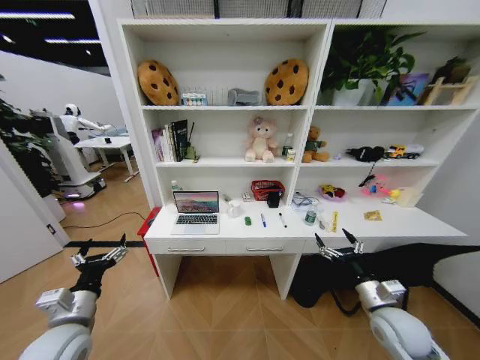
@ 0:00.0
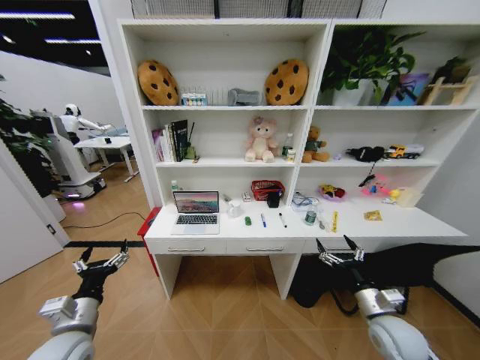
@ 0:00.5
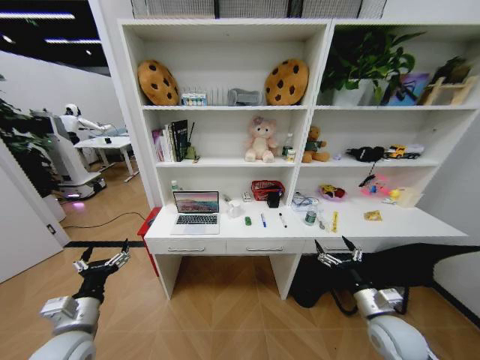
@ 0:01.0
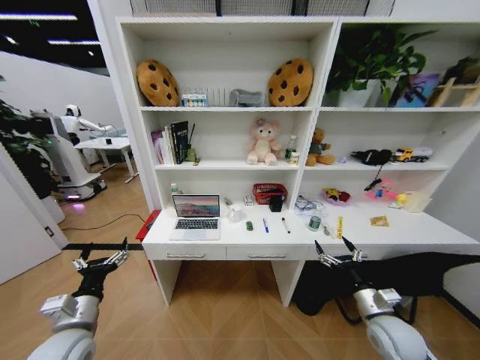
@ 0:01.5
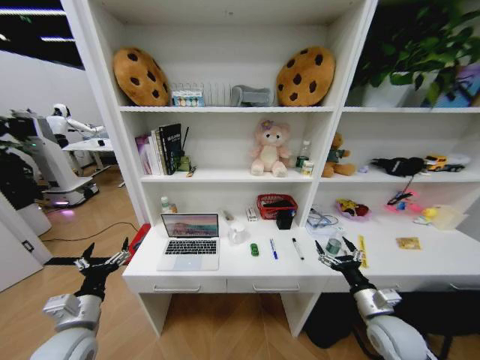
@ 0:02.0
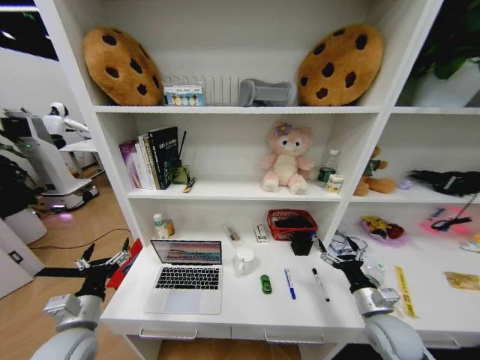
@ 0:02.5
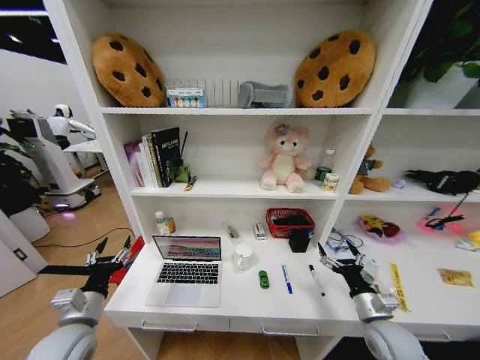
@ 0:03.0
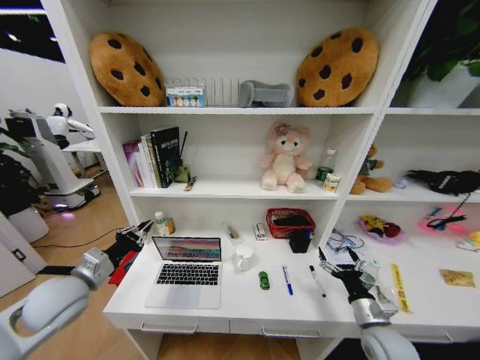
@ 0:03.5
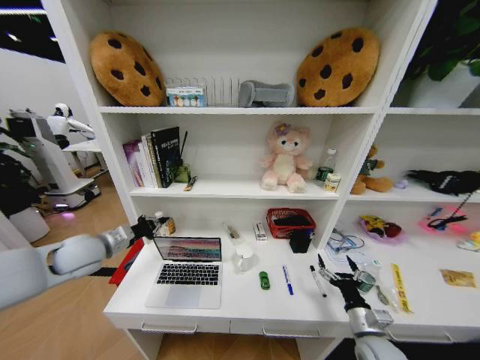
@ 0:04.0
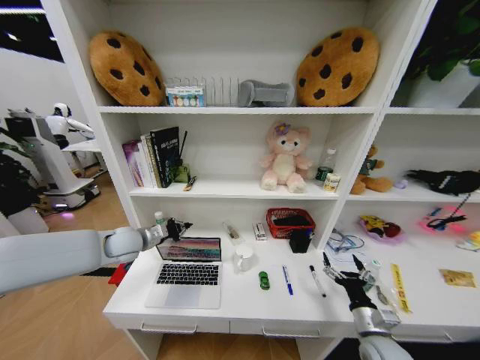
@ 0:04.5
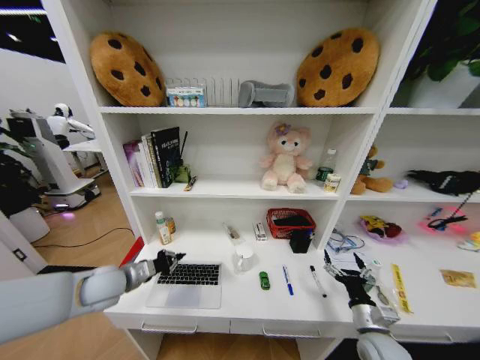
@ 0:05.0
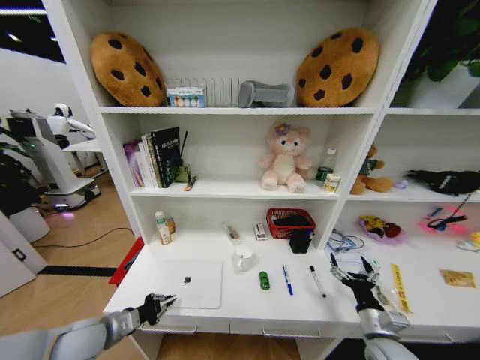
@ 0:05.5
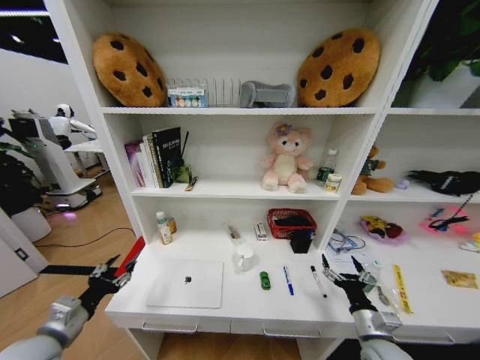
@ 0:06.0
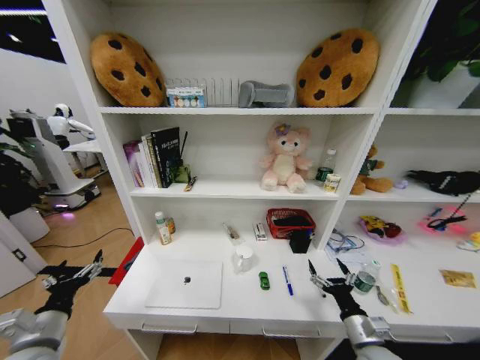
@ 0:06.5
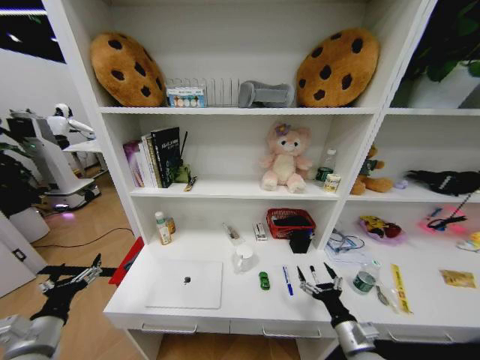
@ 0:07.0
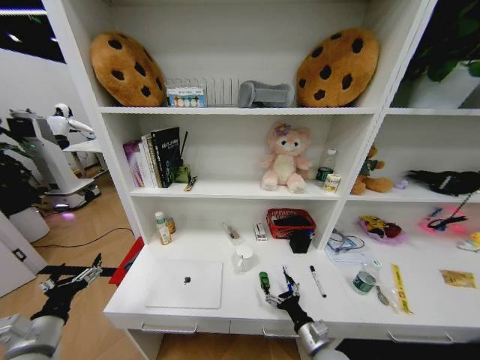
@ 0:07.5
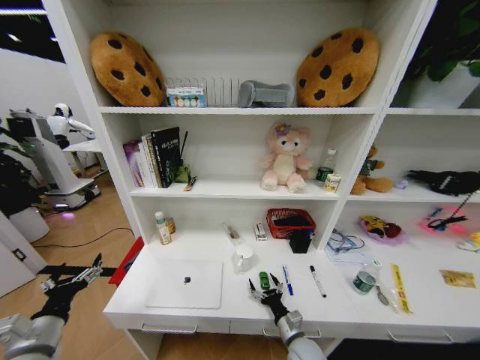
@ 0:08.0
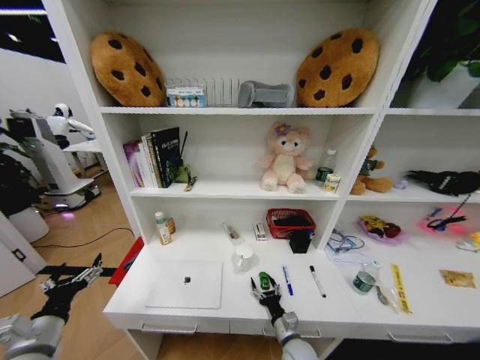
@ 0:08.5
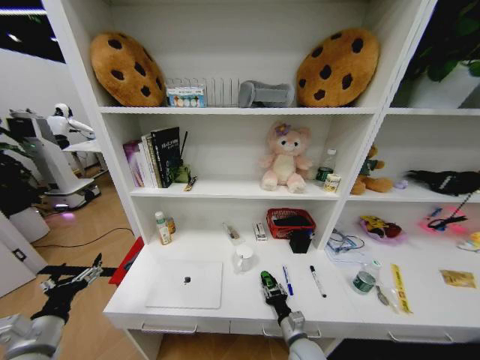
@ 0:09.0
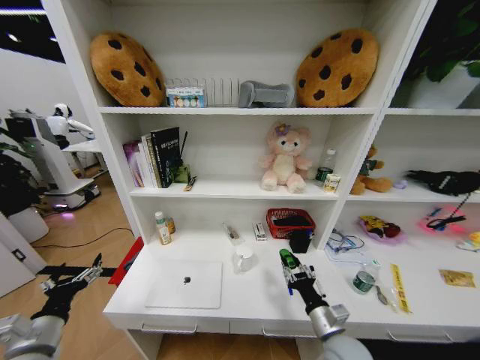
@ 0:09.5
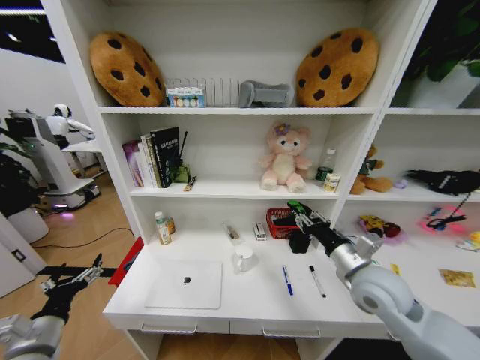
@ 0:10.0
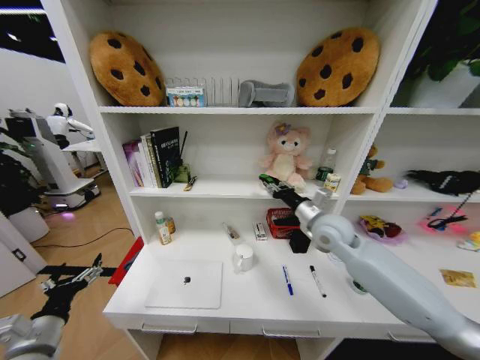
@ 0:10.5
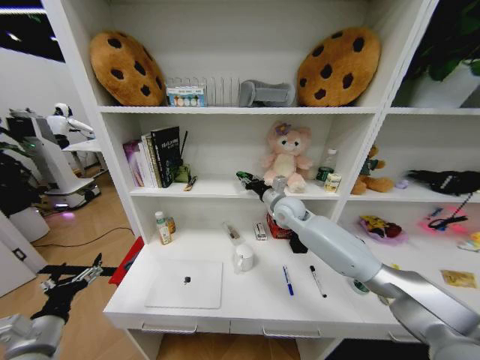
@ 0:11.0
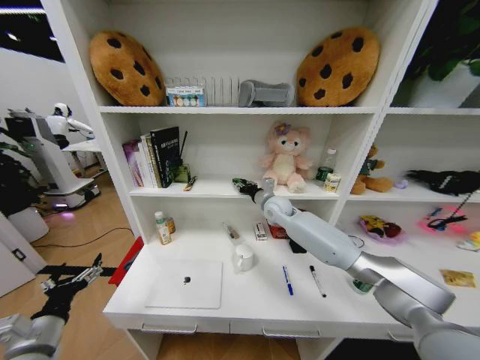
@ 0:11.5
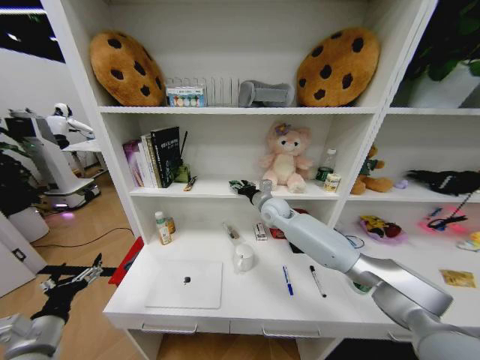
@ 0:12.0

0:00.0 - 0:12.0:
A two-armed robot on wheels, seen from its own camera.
Task of the whole recording: Organize the objects on the table.
0:02.0 - 0:04.0: The right gripper moves downward, some 5 cm, while the left gripper is displaced forward and upward by approximately 20 cm, and closes its fingers.
0:04.0 - 0:06.0: The left gripper moves backward and downward, some 20 cm, and opens up.
0:06.0 - 0:08.0: The right gripper travels to the left and downward by about 20 cm, while the left gripper opens up.
0:08.0 - 0:10.0: The right gripper moves upward, roughly 30 cm, and closes its fingers.
0:10.0 - 0:12.0: The right gripper is displaced forward and to the left by some 30 cm.

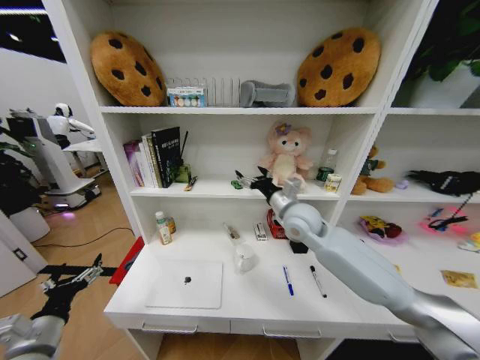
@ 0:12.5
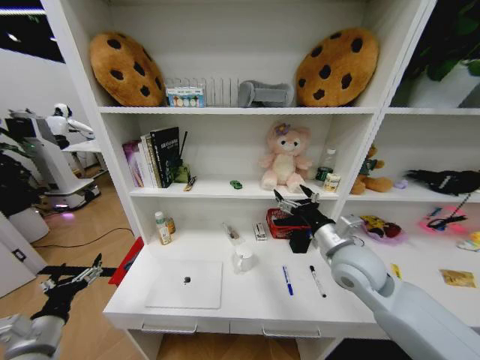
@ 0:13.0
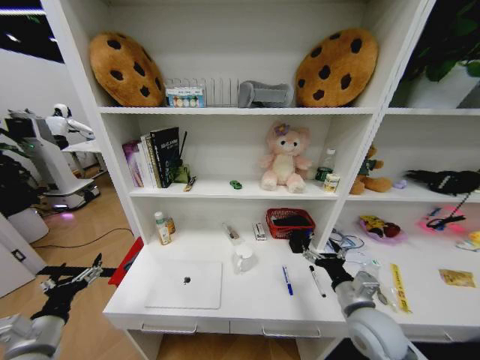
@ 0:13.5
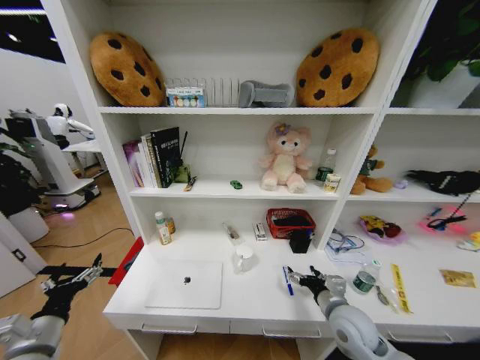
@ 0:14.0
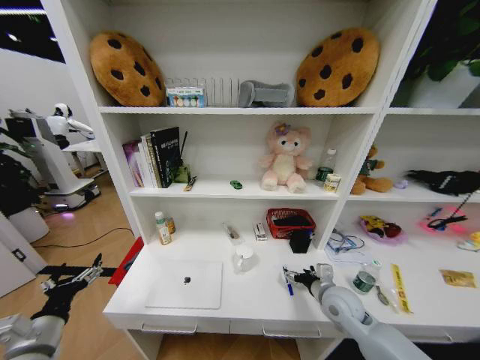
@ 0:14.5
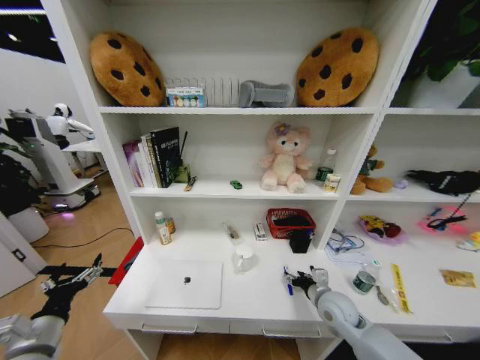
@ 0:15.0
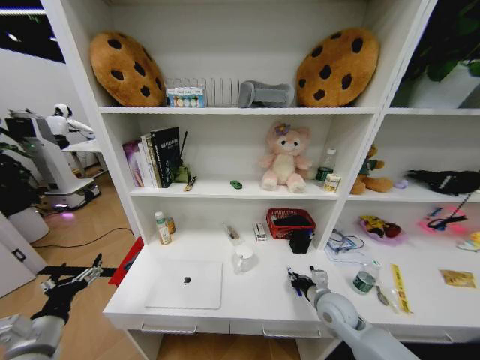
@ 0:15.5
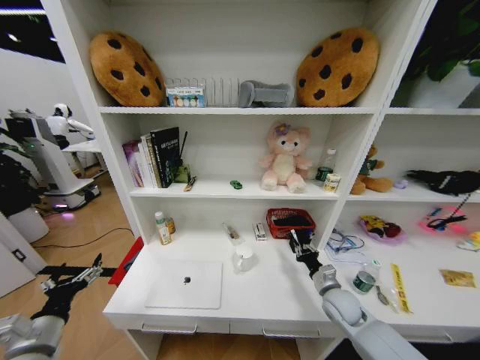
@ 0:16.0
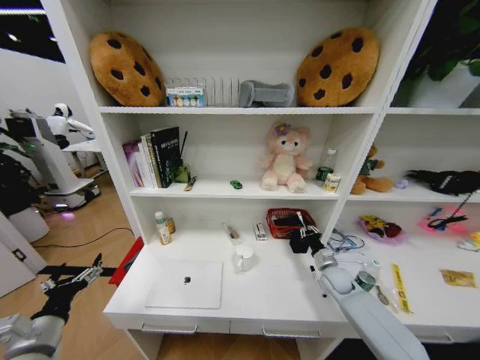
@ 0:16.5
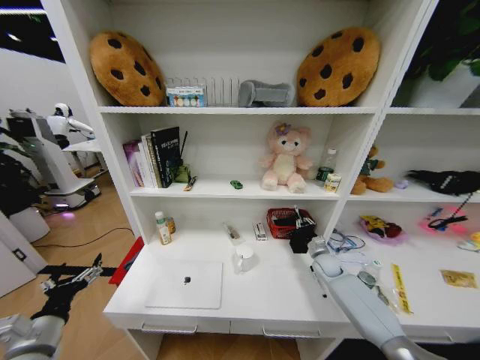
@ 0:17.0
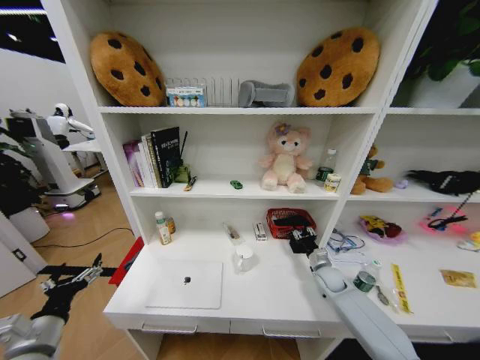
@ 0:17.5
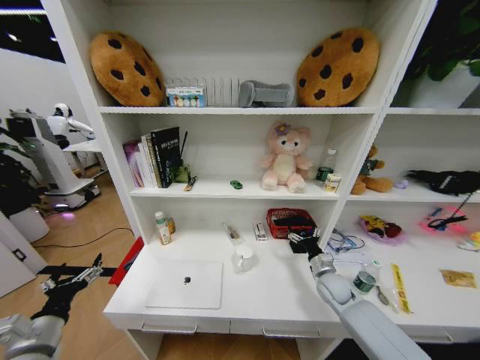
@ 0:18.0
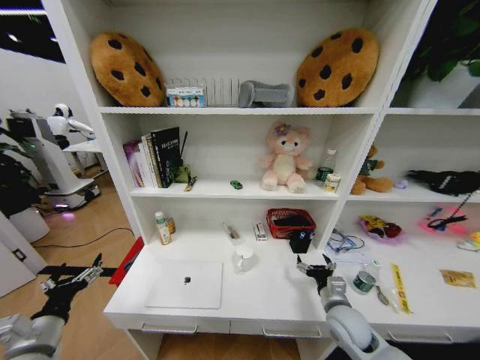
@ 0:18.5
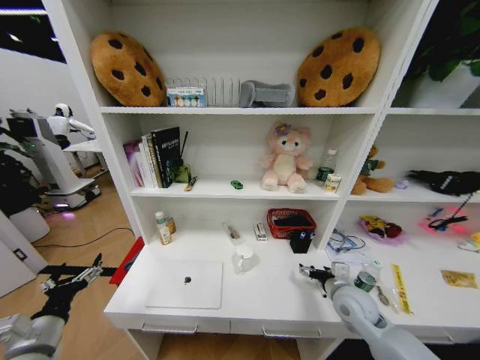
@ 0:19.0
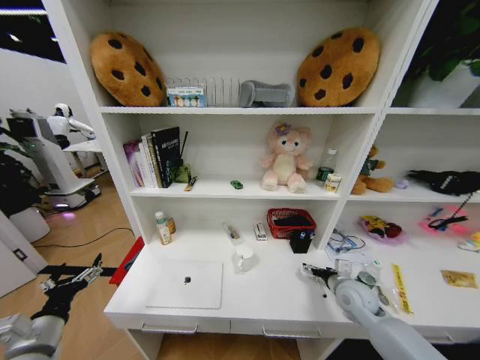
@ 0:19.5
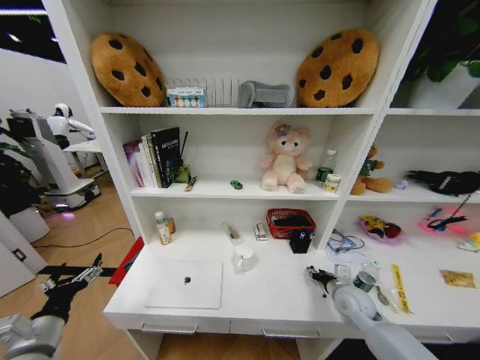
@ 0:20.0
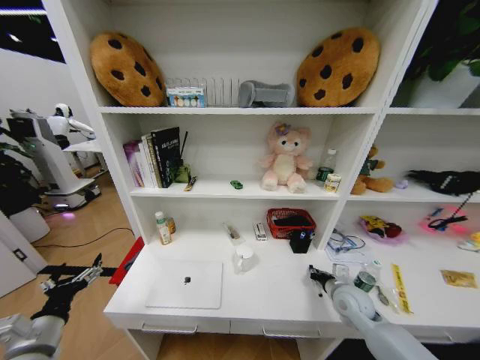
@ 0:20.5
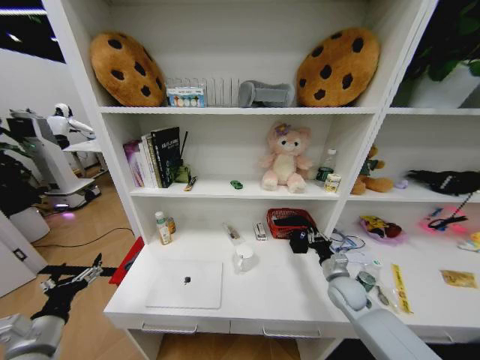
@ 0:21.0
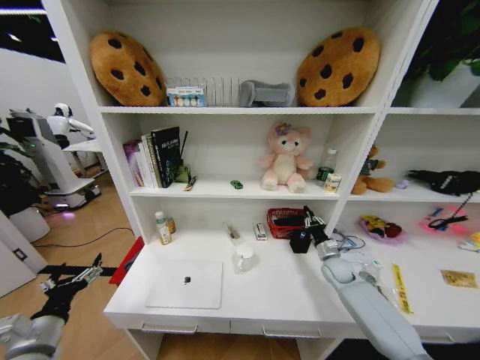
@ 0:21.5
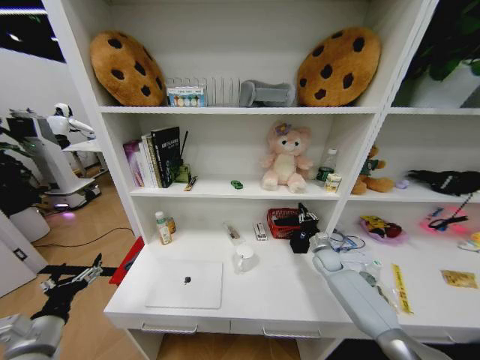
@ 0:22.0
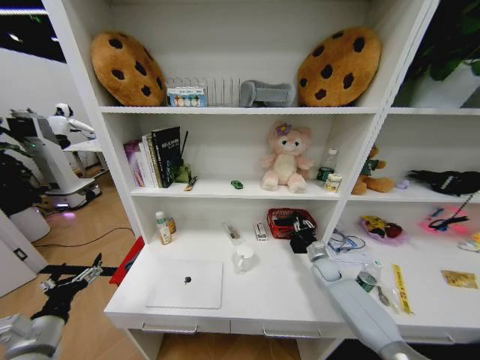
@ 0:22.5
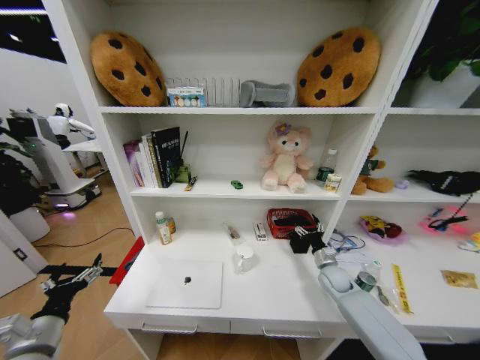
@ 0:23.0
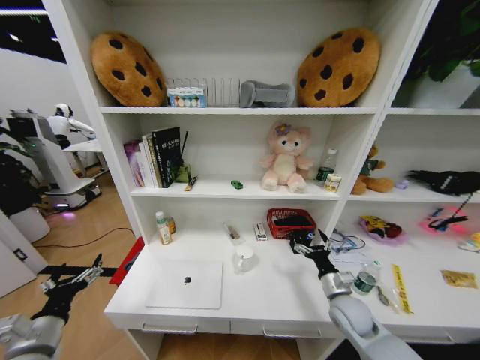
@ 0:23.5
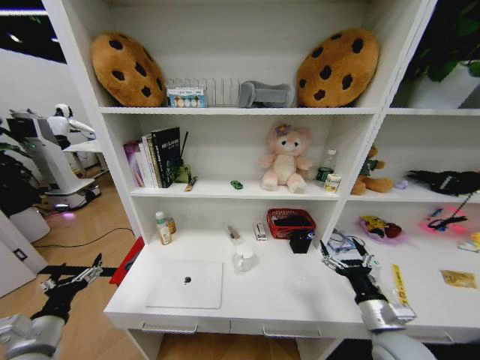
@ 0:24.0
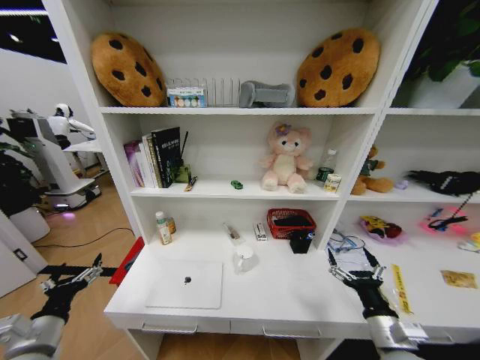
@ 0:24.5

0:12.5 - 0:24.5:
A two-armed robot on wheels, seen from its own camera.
Task of the whole recording: Organize the objects on the table.
0:12.5 - 0:14.5: The right gripper heads downward, backward and to the right, covering approximately 25 cm.
0:14.5 - 0:16.5: The right gripper shifts some 15 cm forward, downward and to the right, and closes.
0:16.5 - 0:18.5: The right gripper travels backward and to the left by about 15 cm, and opens.
0:18.5 - 0:20.5: The right gripper goes some 5 cm forward and to the right, and closes its fingers.
0:20.5 - 0:22.5: The right gripper travels forward and downward by roughly 15 cm.
0:22.5 - 0:24.5: The right gripper heads backward, covering some 30 cm, and opens.

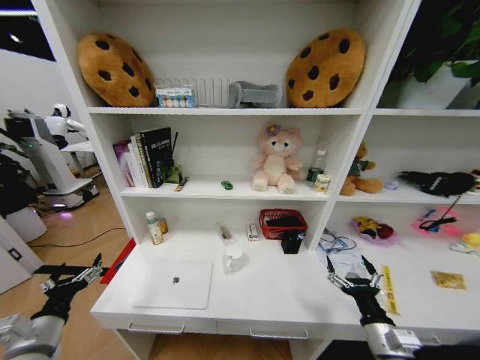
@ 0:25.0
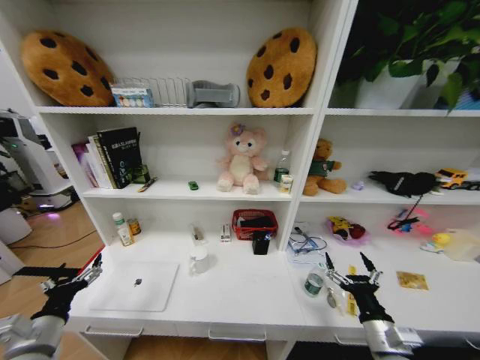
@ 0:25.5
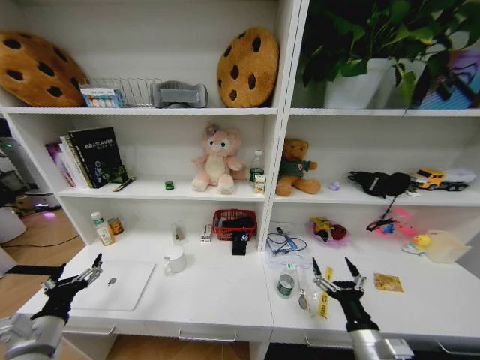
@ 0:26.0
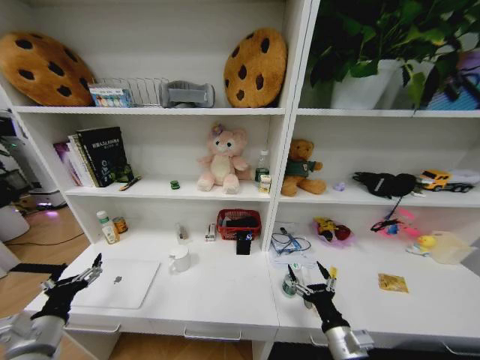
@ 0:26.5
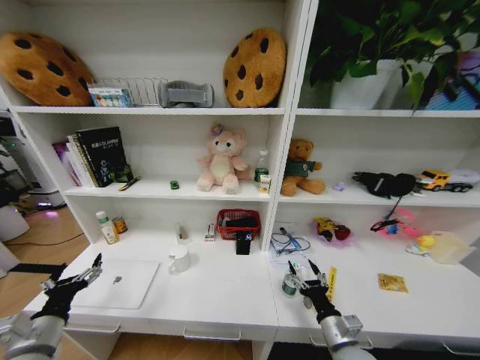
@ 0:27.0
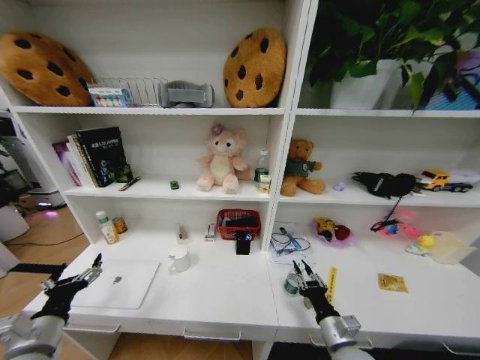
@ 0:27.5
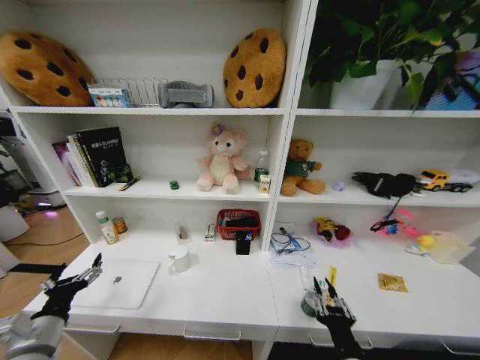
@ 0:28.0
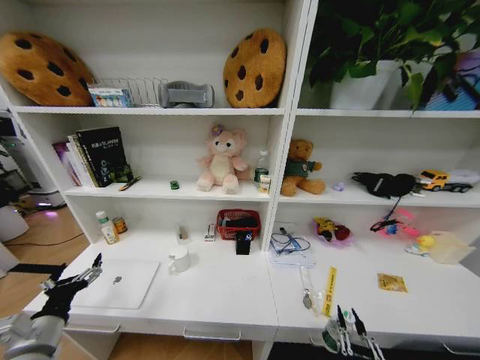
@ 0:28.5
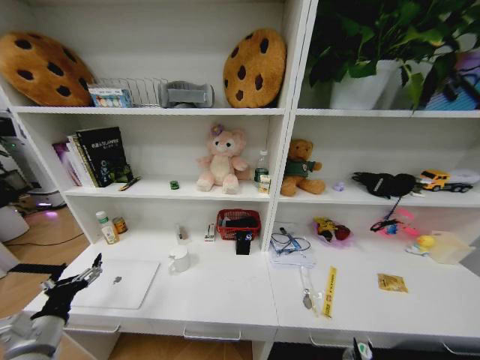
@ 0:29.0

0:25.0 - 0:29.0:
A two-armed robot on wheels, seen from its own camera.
Task of the whole recording: Organize the objects on the table.
0:25.0 - 0:27.0: The right gripper is displaced to the left by some 5 cm.
0:27.0 - 0:29.0: The right gripper travels backward by about 20 cm, and closes.
